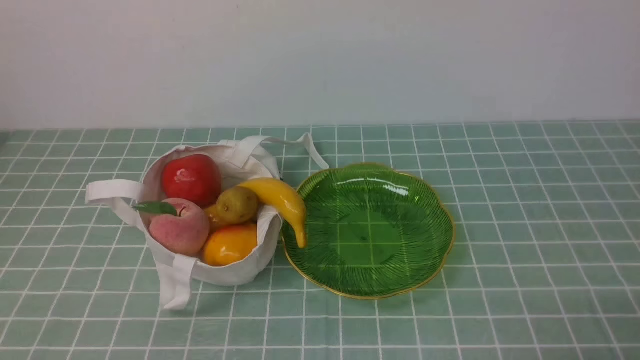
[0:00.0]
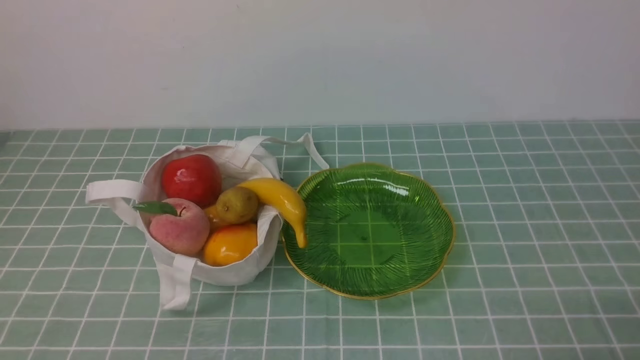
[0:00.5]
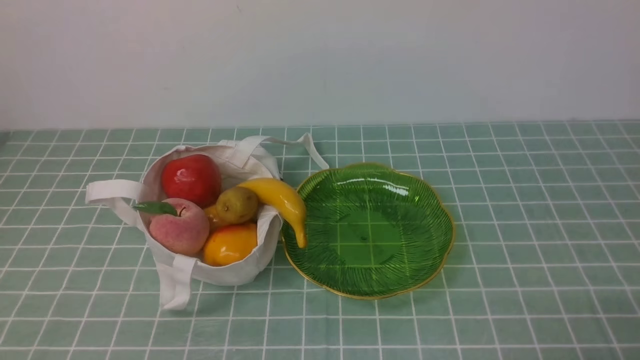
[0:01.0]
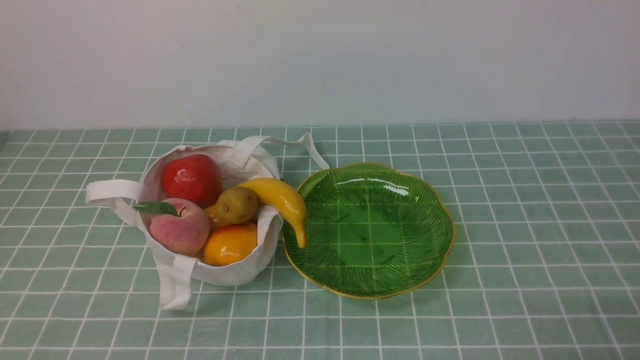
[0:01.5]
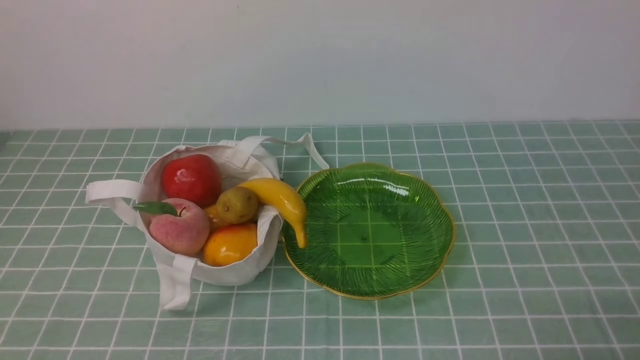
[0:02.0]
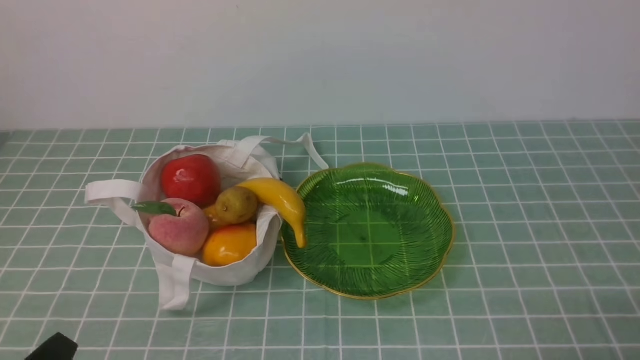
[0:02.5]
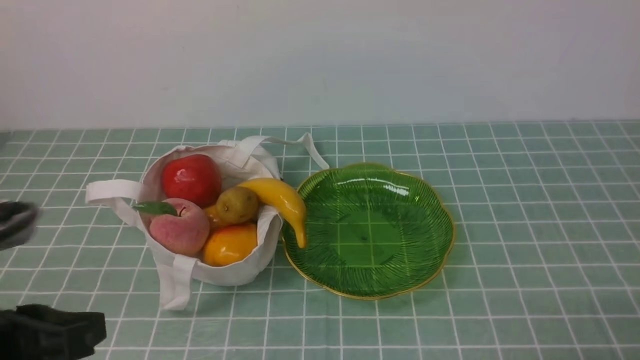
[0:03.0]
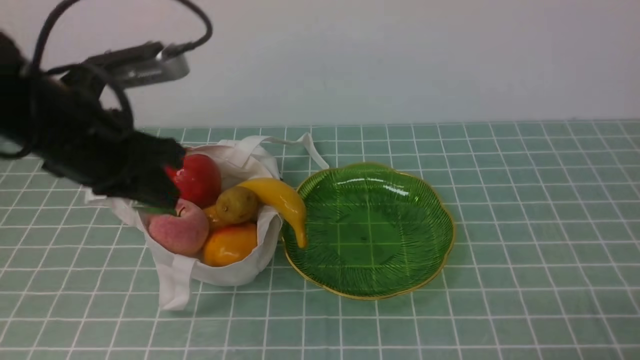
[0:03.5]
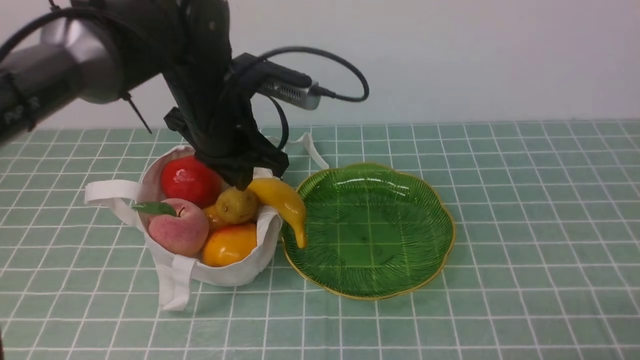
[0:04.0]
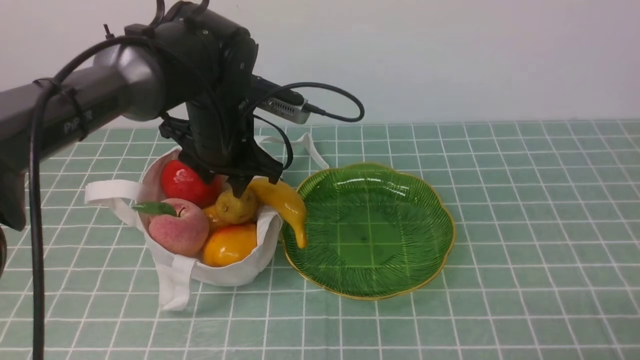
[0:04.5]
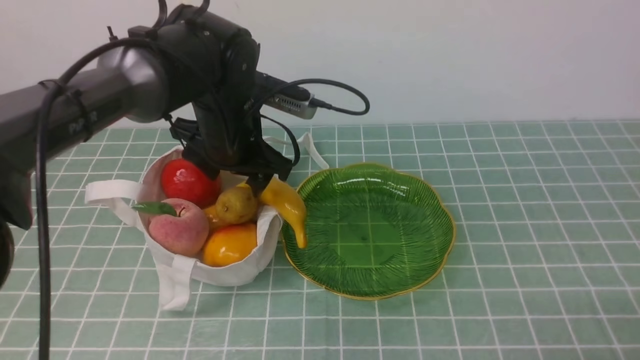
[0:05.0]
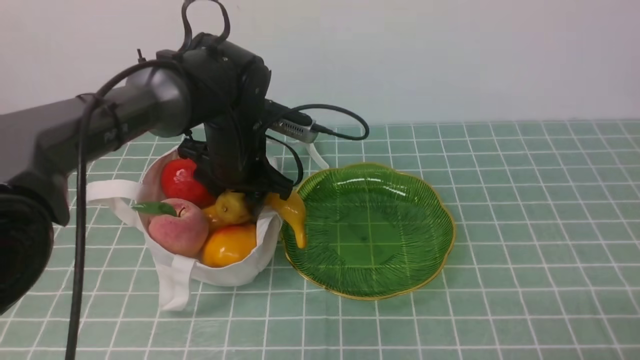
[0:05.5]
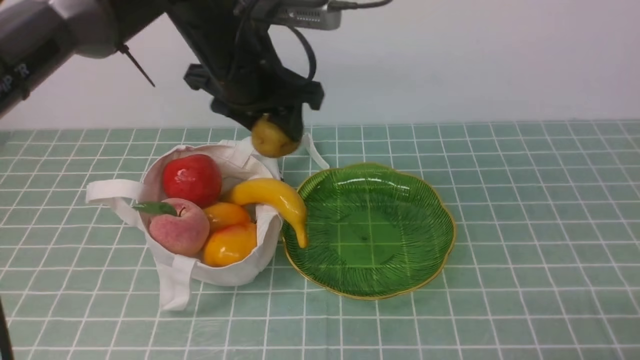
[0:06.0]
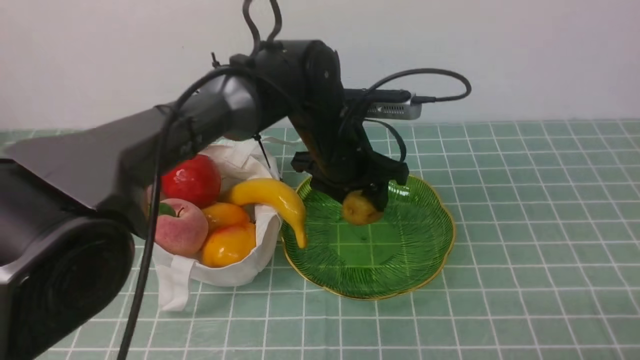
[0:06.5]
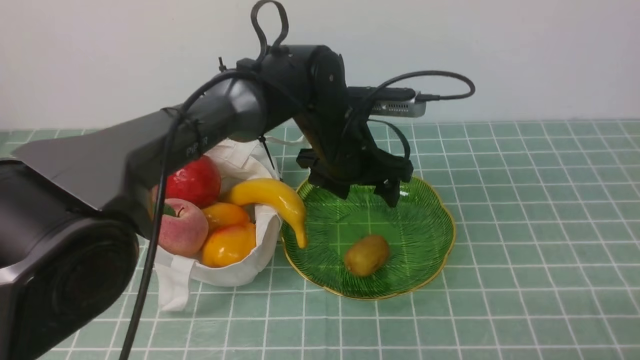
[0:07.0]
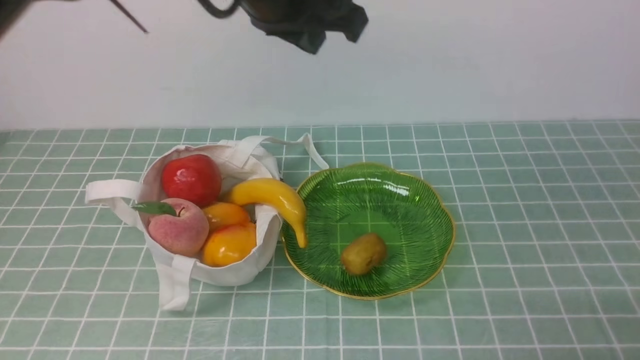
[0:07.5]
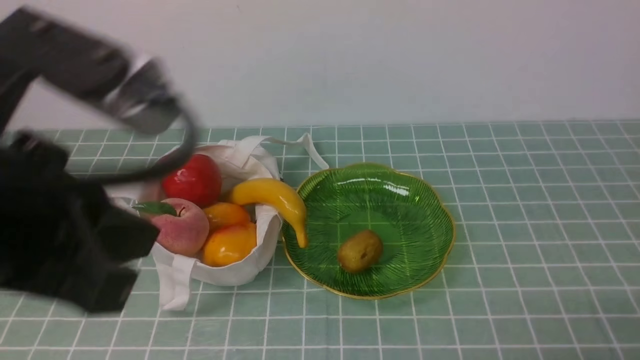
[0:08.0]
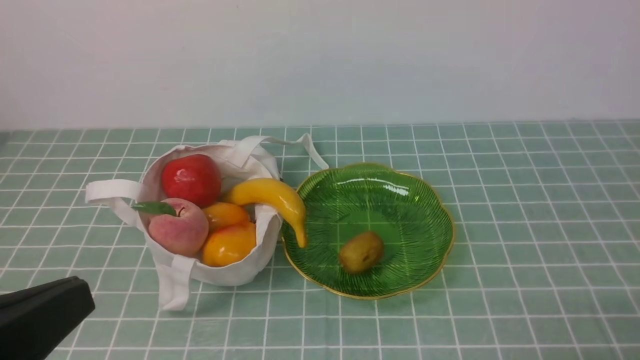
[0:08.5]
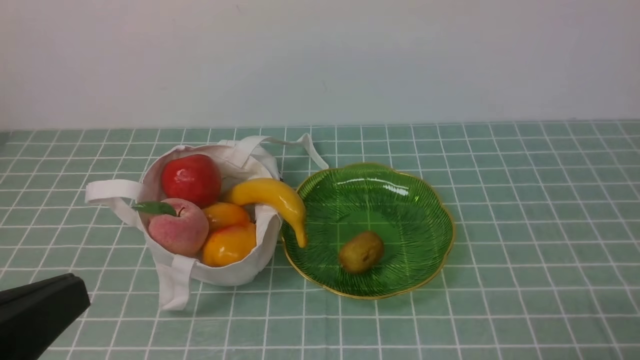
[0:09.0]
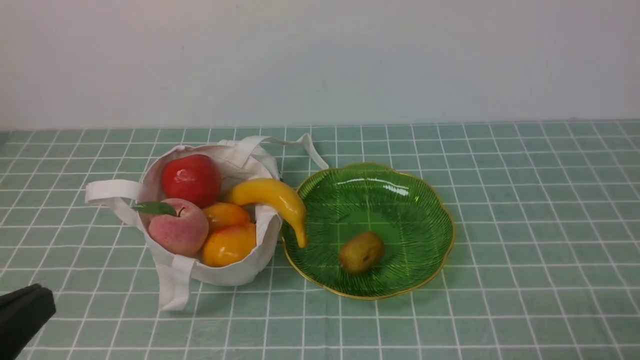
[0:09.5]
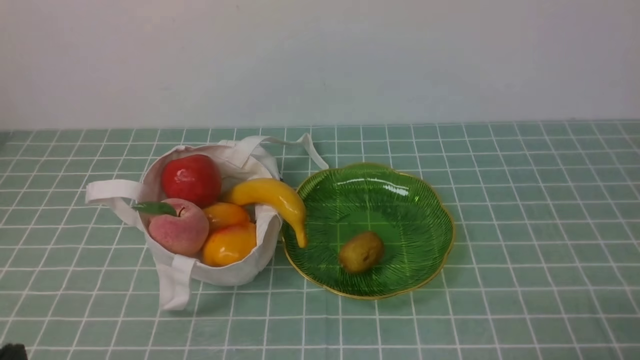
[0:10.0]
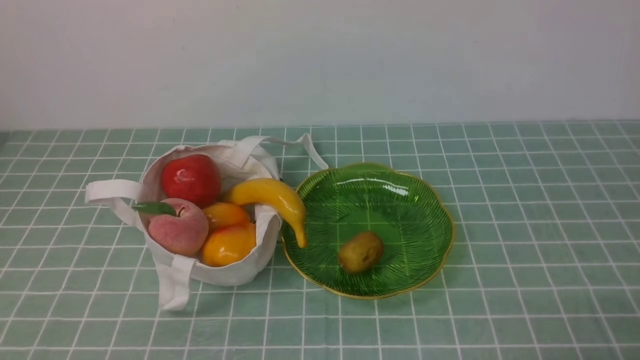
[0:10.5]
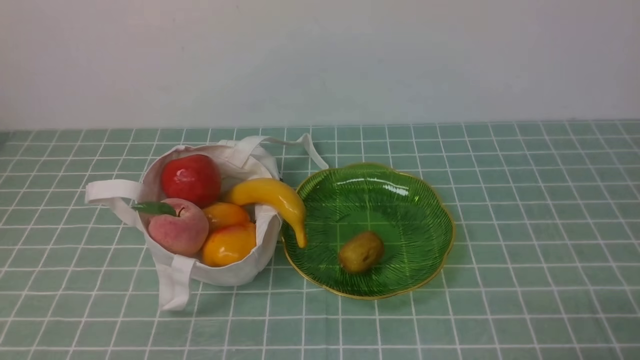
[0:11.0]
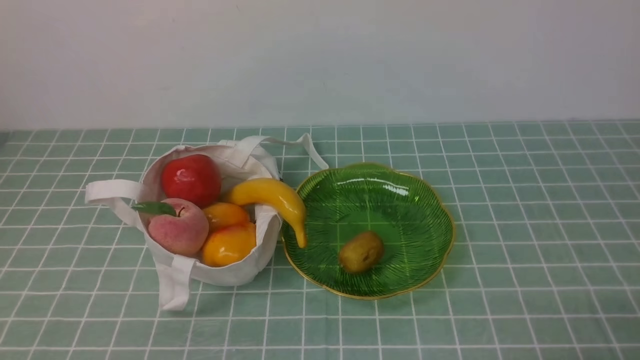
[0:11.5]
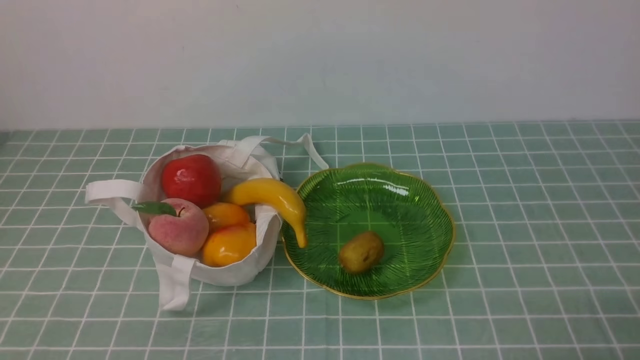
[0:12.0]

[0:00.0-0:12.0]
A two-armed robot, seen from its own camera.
Step, 0:00.0 to 0:05.5: use the left arm to grab a kiwi from the bag.
Step, 0:06.0 to 0:06.5: use the left arm to put the kiwi into the empty plate on the right.
0:02.0 to 0:04.0: The left gripper shifts some 35 cm forward, to the right and upward.
0:04.0 to 0:06.0: The left gripper moves roughly 5 cm downward and comes back, and opens up.
0:06.0 to 0:08.0: The left gripper moves backward and upward, some 25 cm, and closes its fingers.
0:08.0 to 0:10.0: The left gripper is displaced downward, backward and to the left by roughly 25 cm.

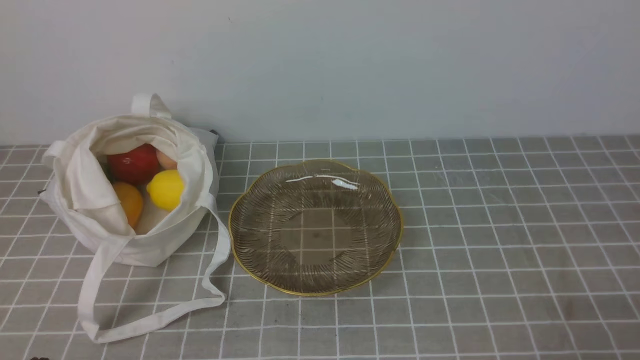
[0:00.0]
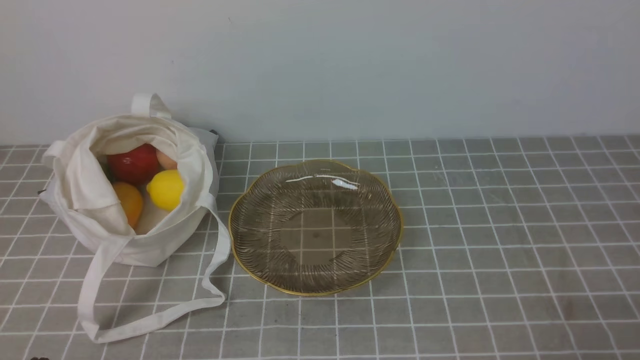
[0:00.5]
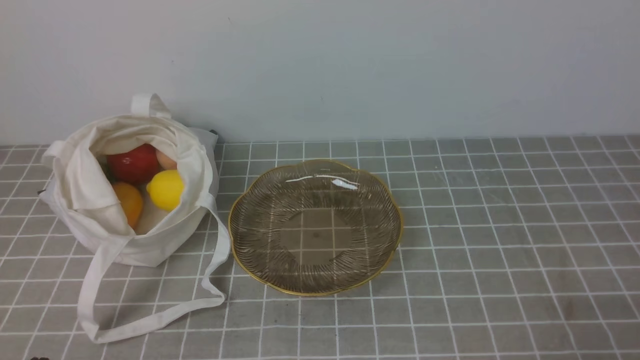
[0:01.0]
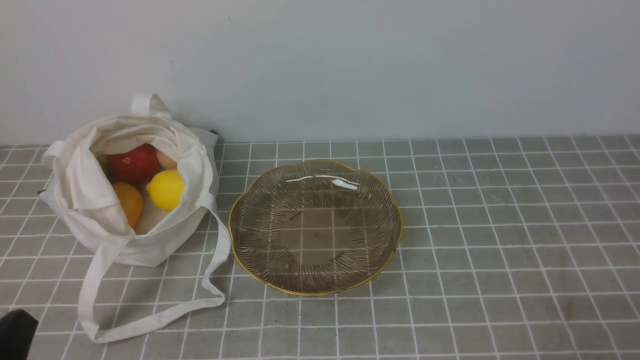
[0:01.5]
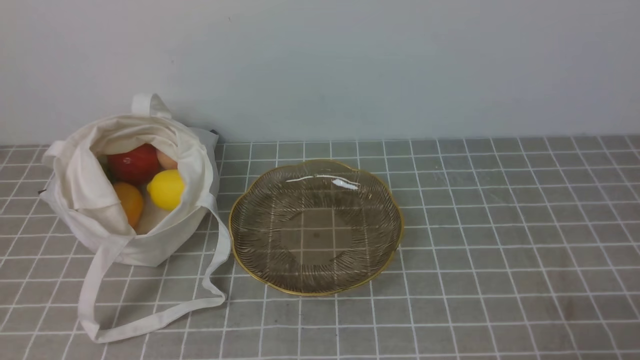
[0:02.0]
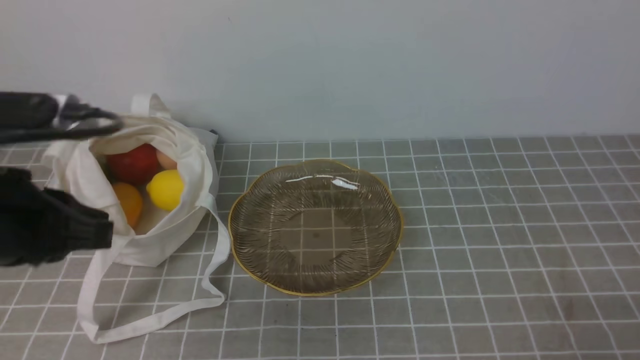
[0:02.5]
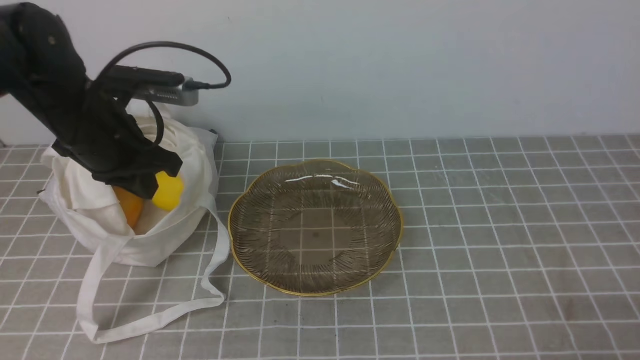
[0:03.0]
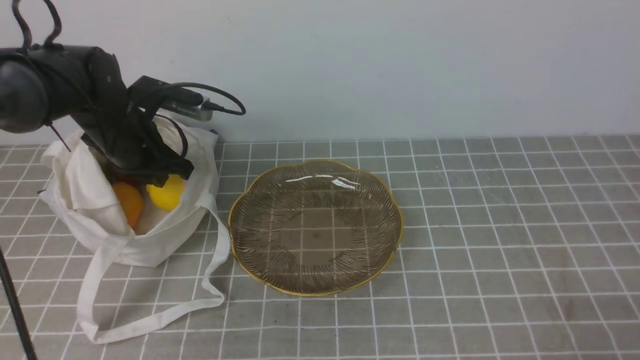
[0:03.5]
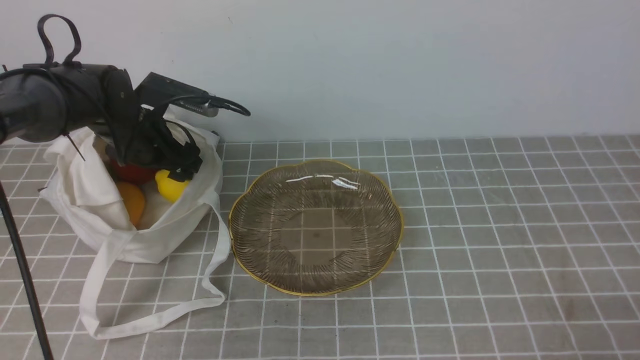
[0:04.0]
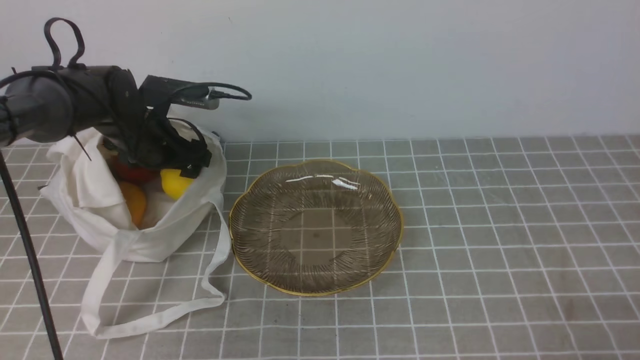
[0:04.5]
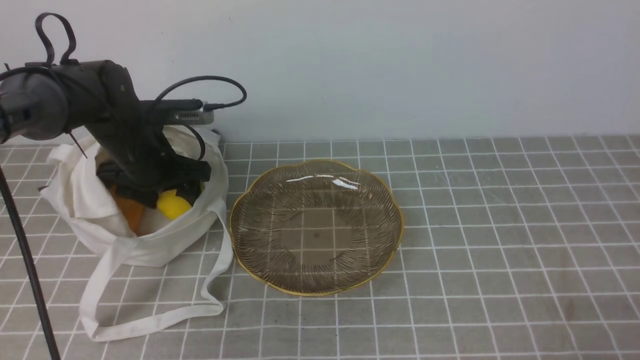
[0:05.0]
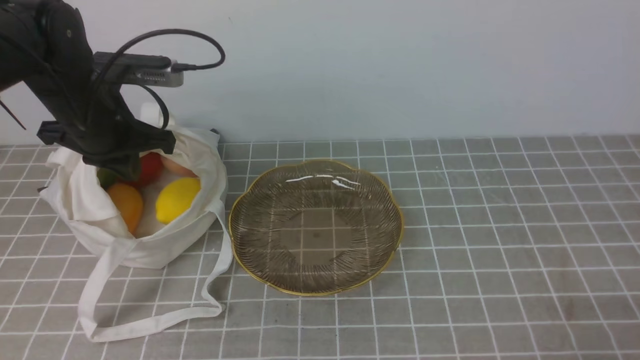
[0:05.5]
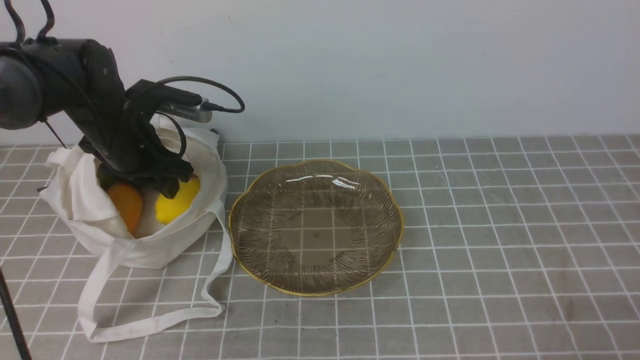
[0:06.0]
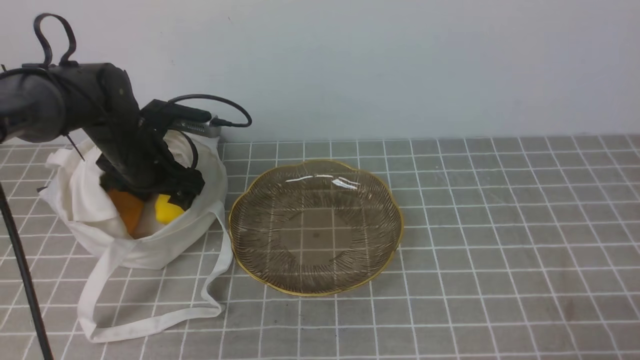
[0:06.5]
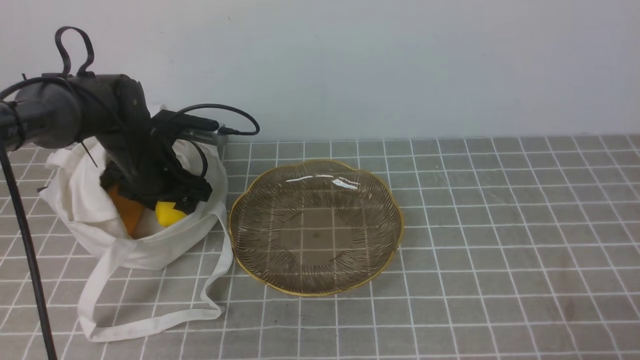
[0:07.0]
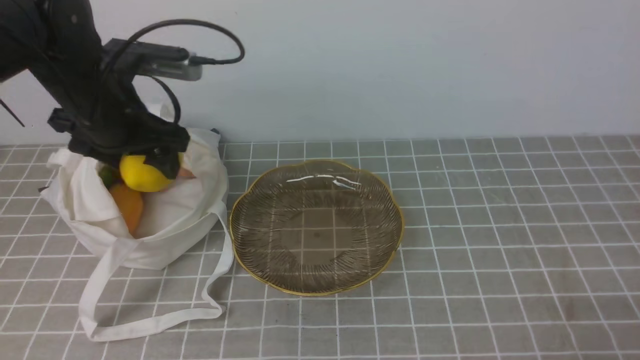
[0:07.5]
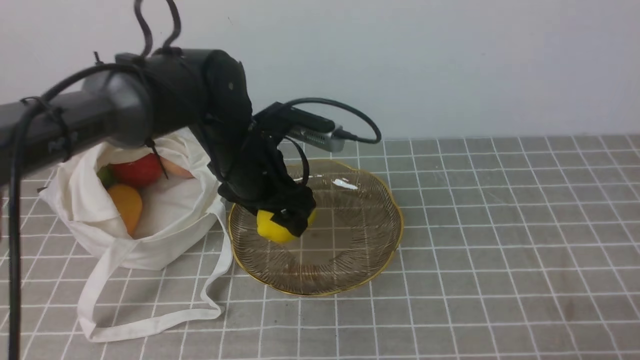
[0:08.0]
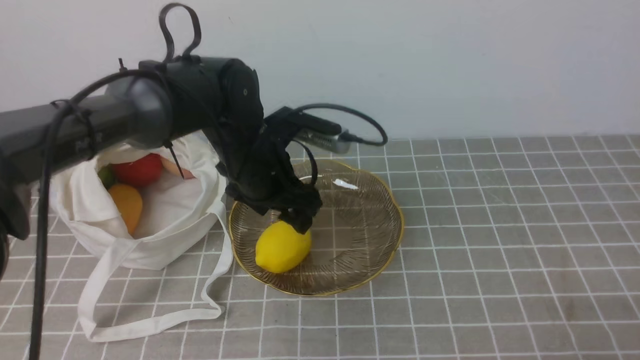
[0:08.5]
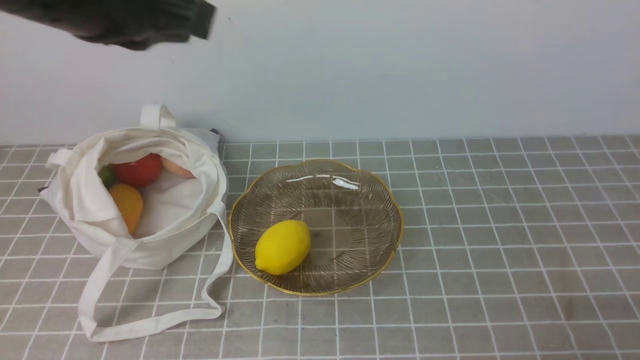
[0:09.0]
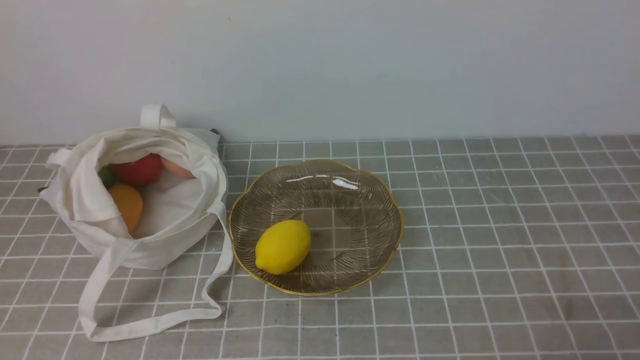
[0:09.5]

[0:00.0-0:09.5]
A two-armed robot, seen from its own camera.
Step, 0:00.0 to 0:07.0: use the left arm to grab a lemon from the bag.
Step, 0:07.5 to 0:08.0: use the left arm to put the lemon into the empty plate on the right.
0:02.0 to 0:04.0: The left gripper moves forward, some 40 cm, and opens.
0:04.0 to 0:05.5: The left gripper heads upward and backward, covering roughly 10 cm, and closes.
0:05.5 to 0:07.5: The left gripper goes downward and returns, approximately 10 cm each way, and opens up.
0:07.5 to 0:09.5: The left gripper is displaced backward and upward by roughly 35 cm, and closes up.
